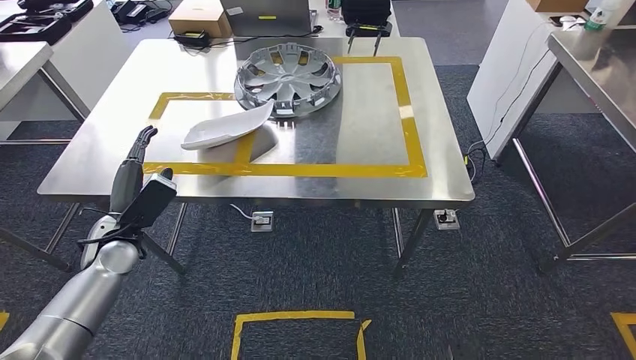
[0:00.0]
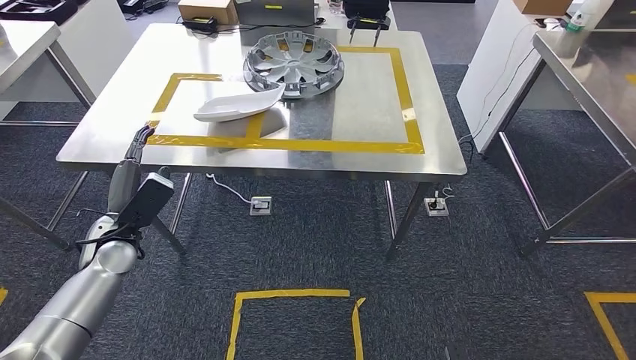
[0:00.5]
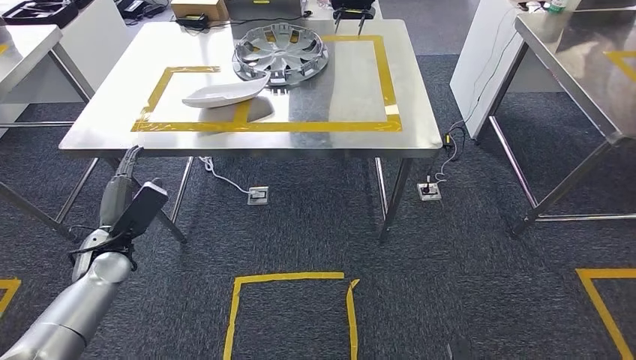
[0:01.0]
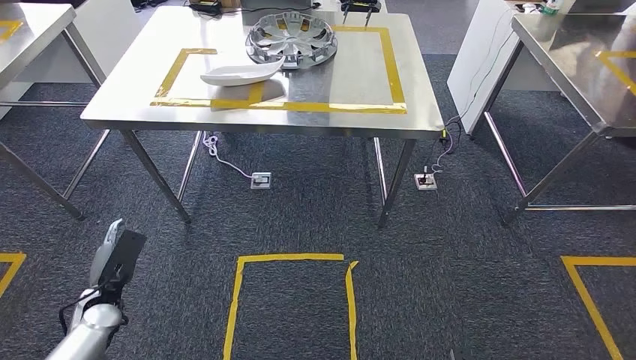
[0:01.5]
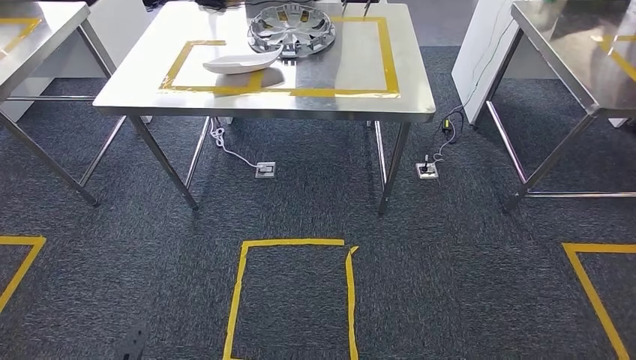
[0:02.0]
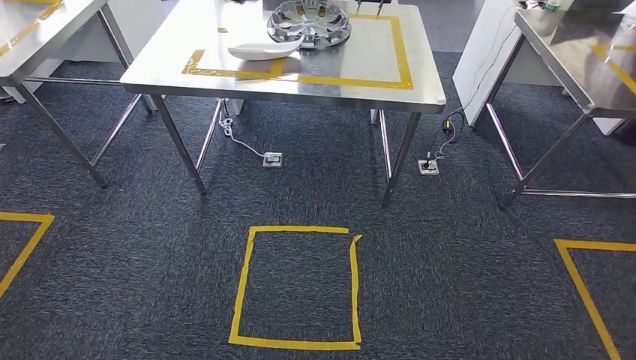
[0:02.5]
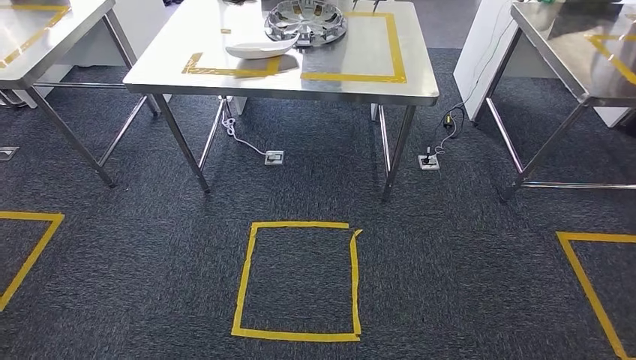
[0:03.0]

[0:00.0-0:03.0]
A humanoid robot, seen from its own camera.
Step, 0:00.0 to 0:03.0: Move to the initial position of the shelf.
